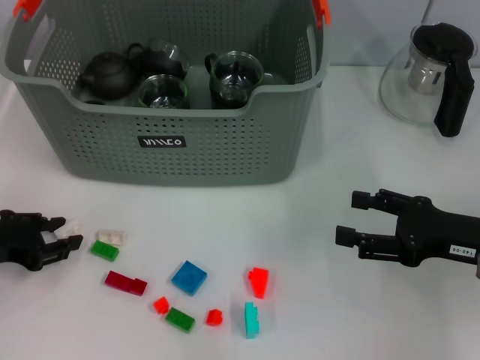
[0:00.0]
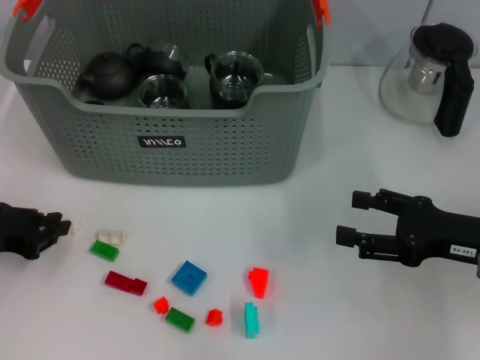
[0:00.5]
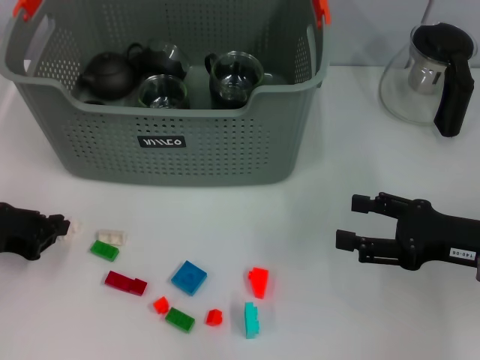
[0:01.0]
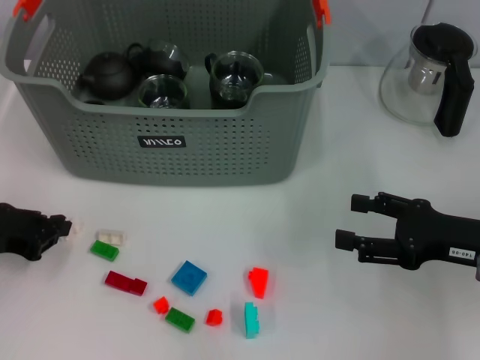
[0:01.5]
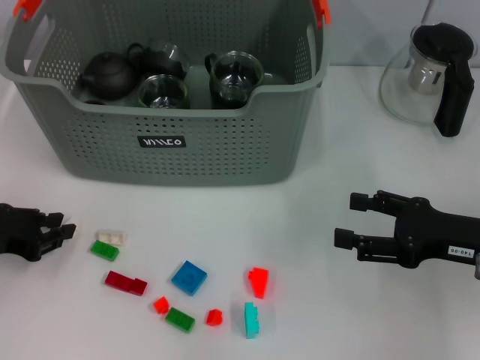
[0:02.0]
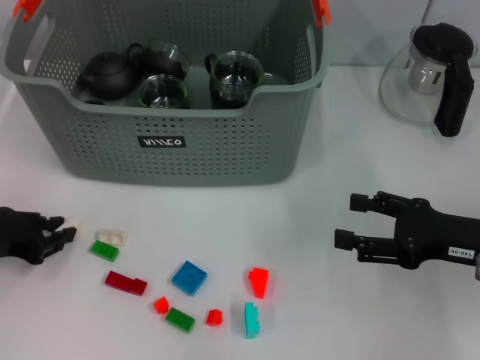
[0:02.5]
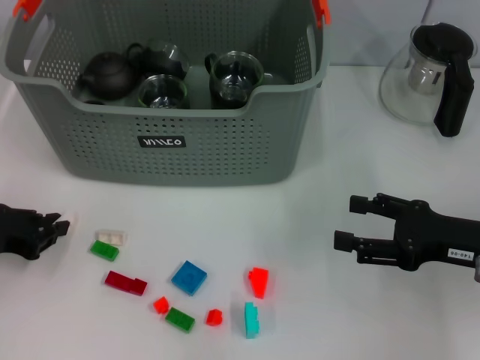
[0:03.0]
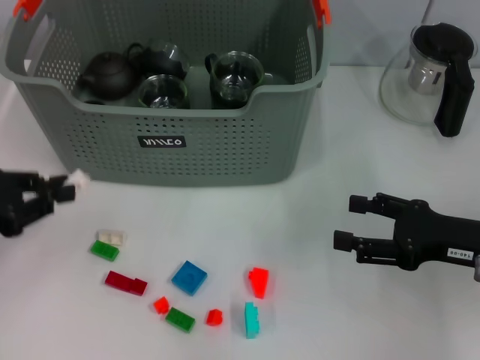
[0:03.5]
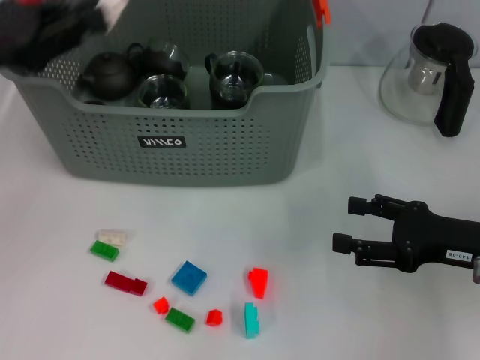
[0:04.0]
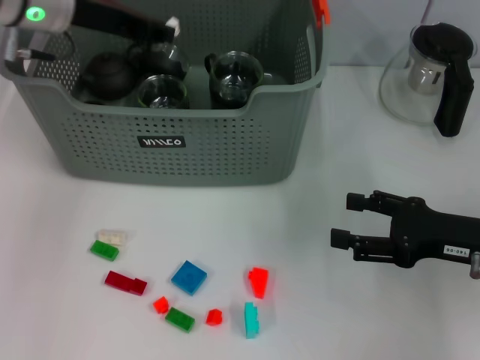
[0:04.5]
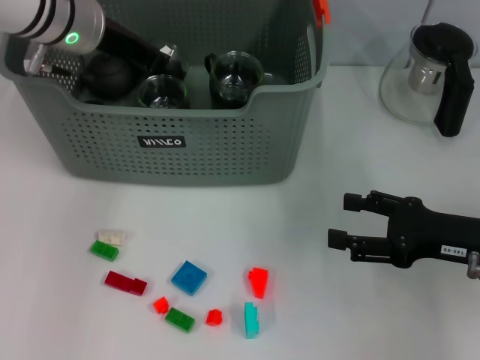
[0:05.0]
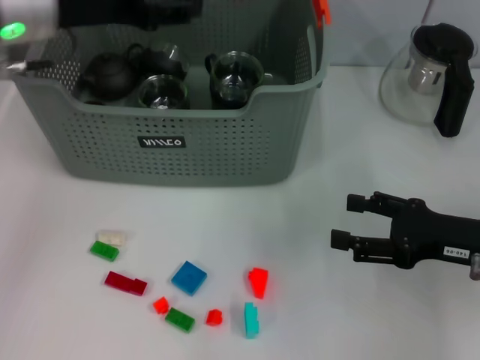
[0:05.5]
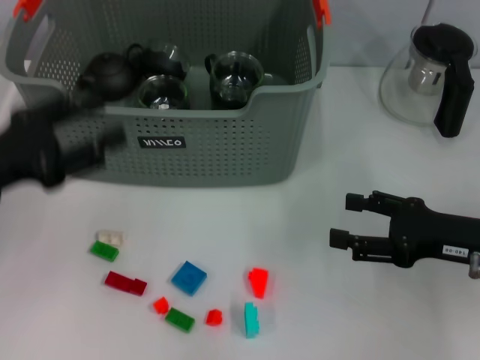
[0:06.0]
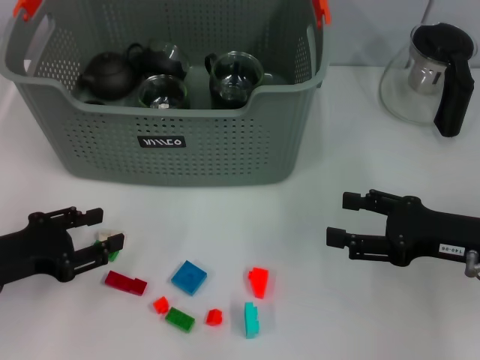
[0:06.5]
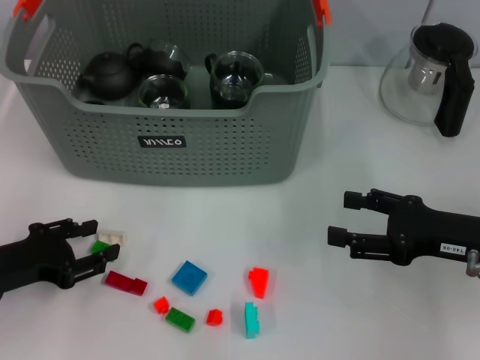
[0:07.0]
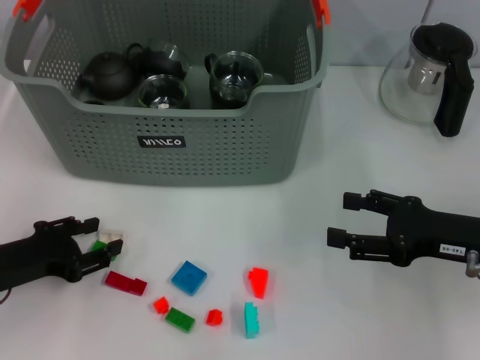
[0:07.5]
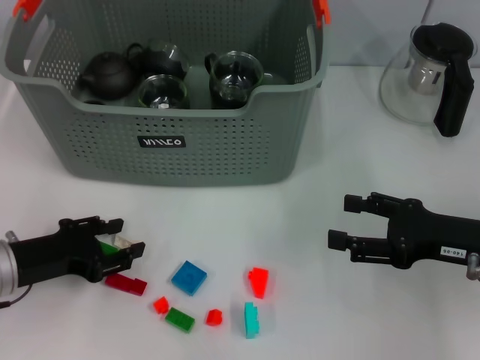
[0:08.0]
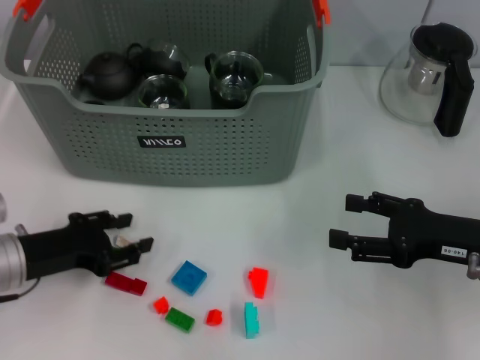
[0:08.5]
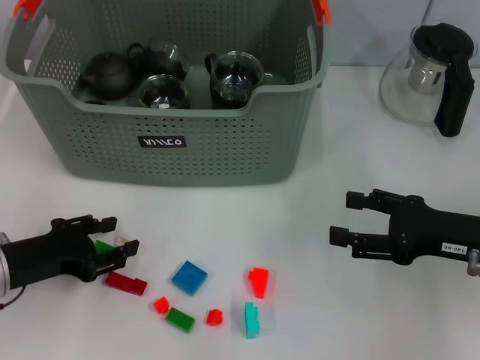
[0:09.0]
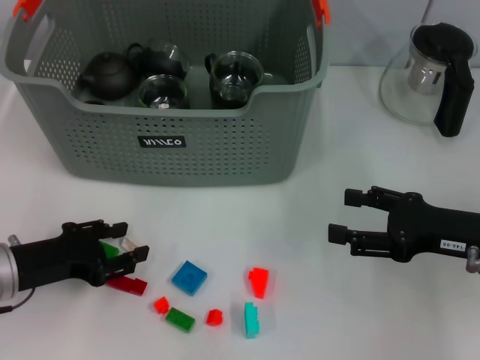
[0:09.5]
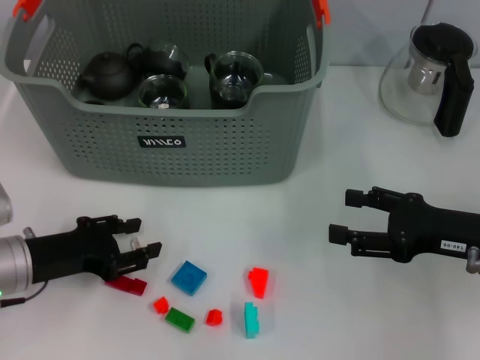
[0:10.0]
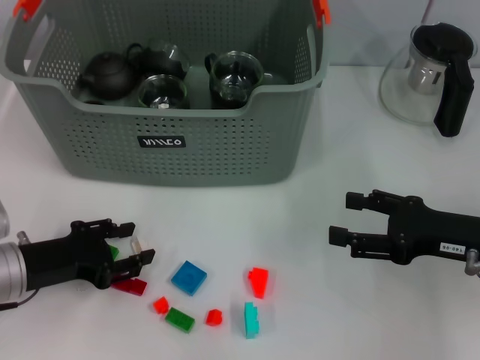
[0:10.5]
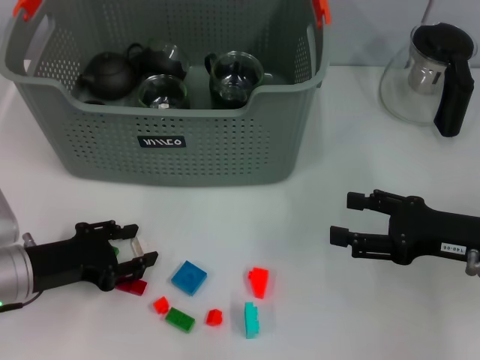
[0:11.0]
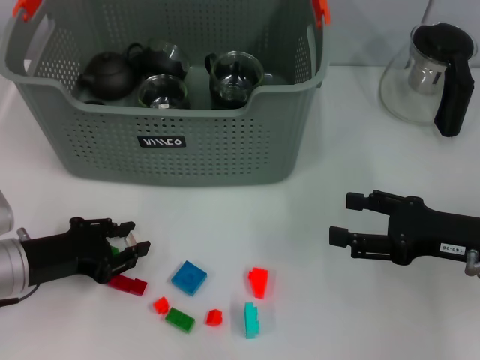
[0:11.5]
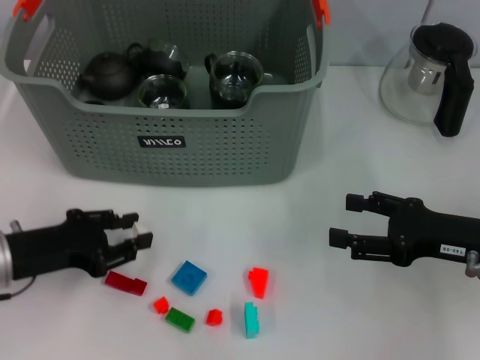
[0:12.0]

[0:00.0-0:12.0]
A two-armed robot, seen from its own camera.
Task of the whole recording: pick up the teacup on the table and place it into the storage bin, pick up the block on the table and place it into the storage bin.
Step, 0:00.0 to 0:03.0: Grasp the white block with left gripper.
Step, 0:03.5 to 0:05.0: Place the white block in the storage box with left gripper.
Step, 0:05.5 to 0:11.5: Grasp the white block with left gripper.
0:00.0 to 0:02.0: The two grippers keep their place.
0:02.0 to 0:04.0: The left gripper goes about 15 cm upward.
0:04.0 to 0:06.0: The left gripper moves downward and backward, approximately 10 cm, and opens up.
0:06.0 to 0:08.0: The left gripper travels downward by some 10 cm.
0:08.0 to 0:12.0: The grippers move only a little.

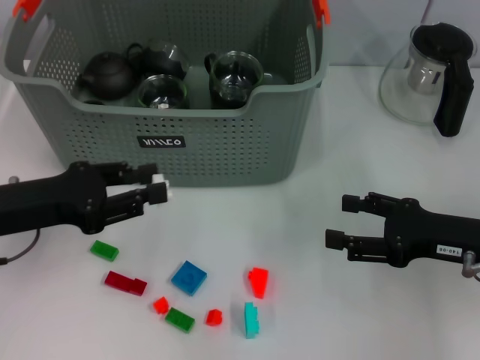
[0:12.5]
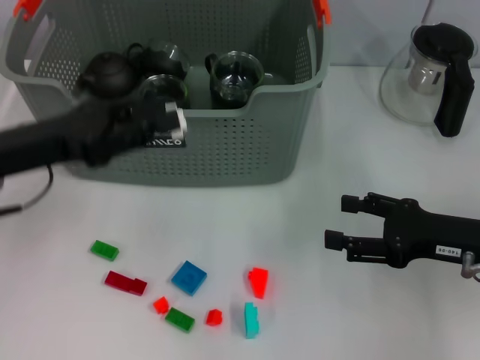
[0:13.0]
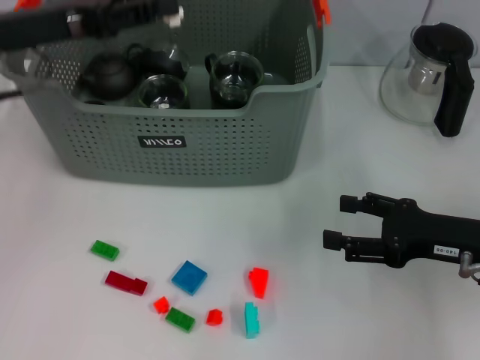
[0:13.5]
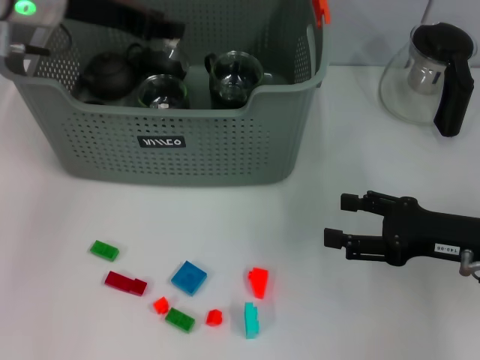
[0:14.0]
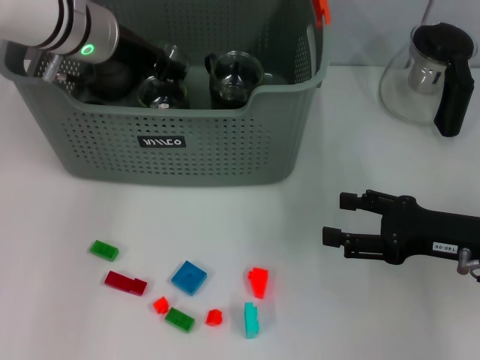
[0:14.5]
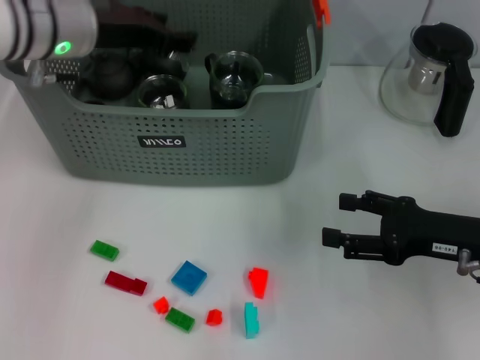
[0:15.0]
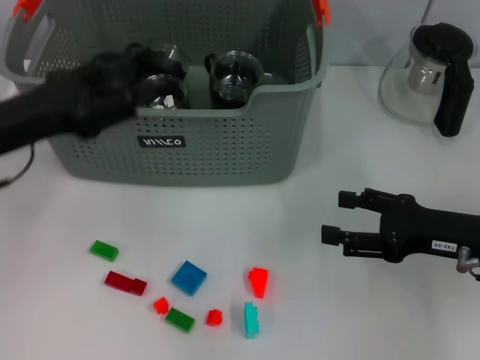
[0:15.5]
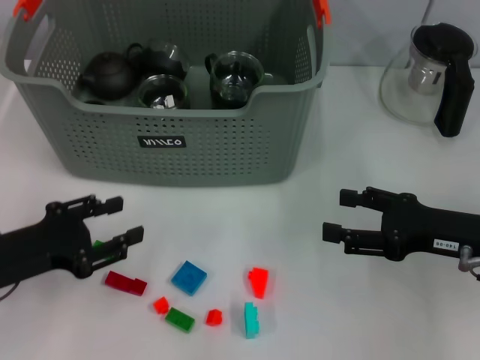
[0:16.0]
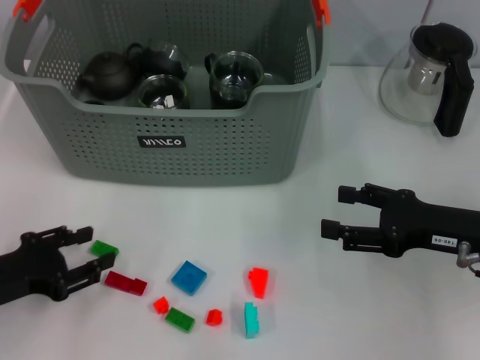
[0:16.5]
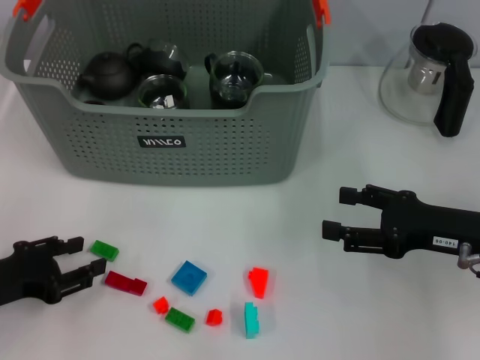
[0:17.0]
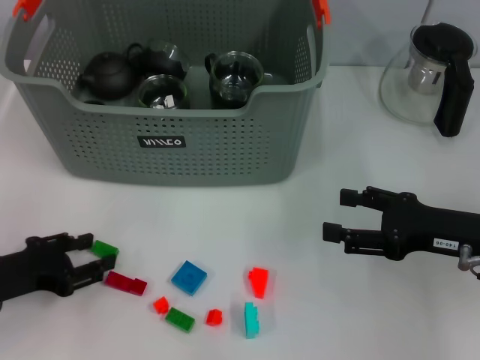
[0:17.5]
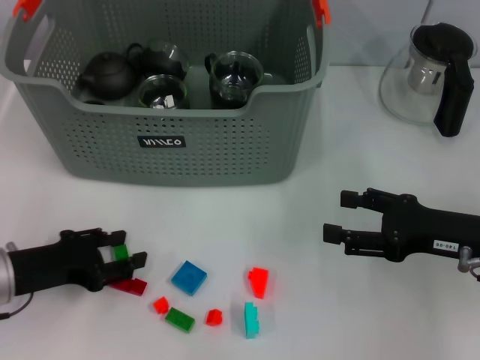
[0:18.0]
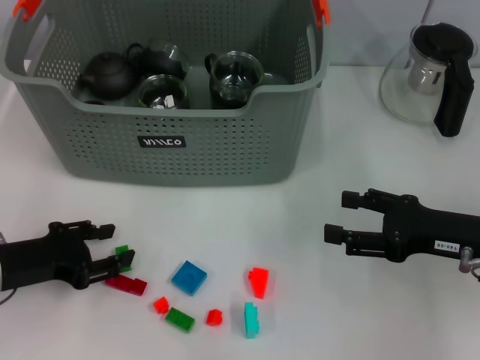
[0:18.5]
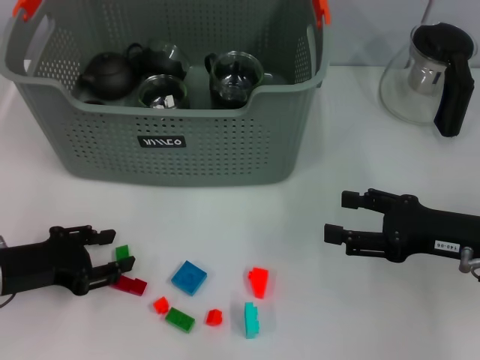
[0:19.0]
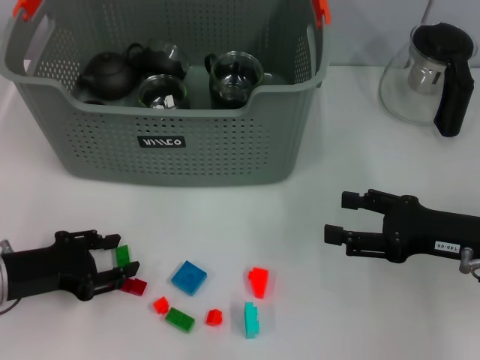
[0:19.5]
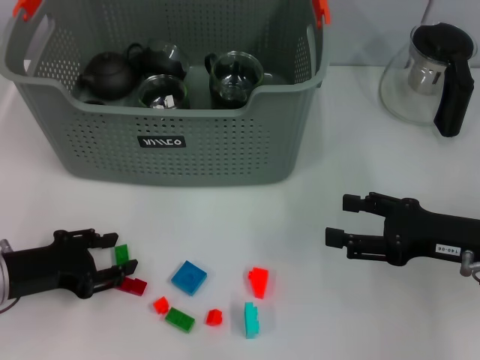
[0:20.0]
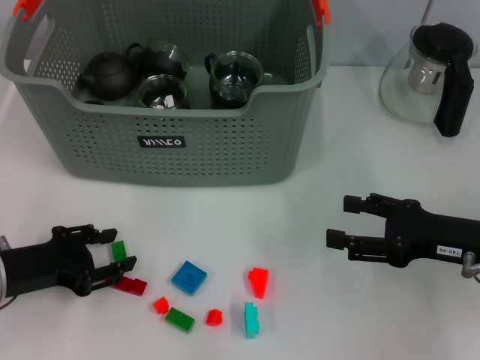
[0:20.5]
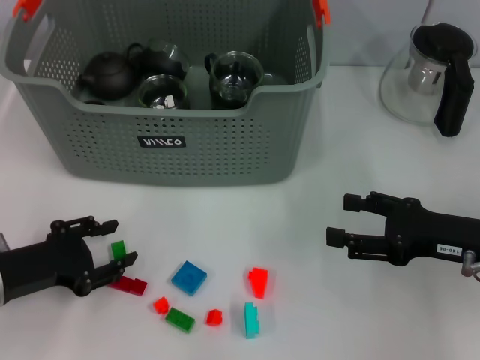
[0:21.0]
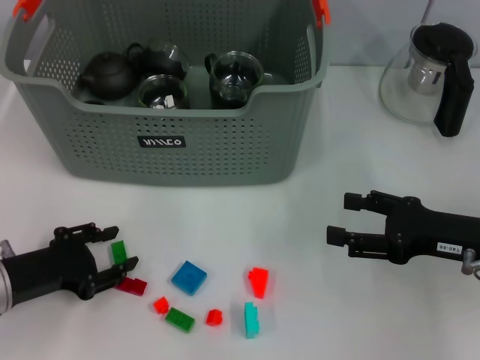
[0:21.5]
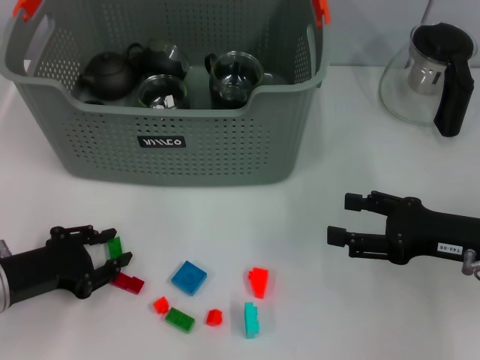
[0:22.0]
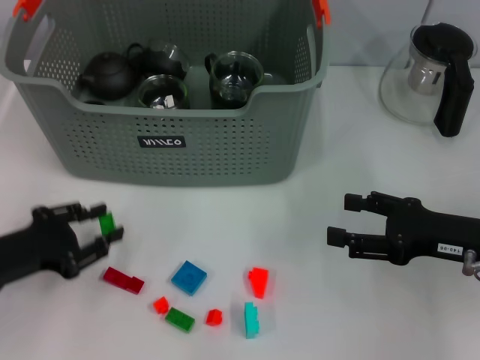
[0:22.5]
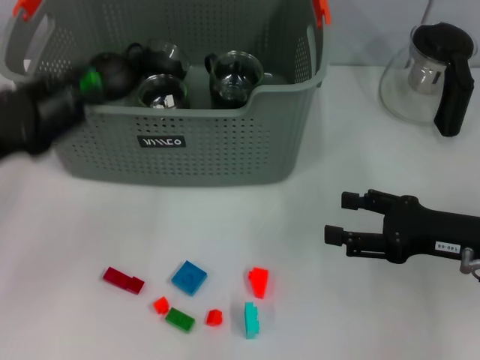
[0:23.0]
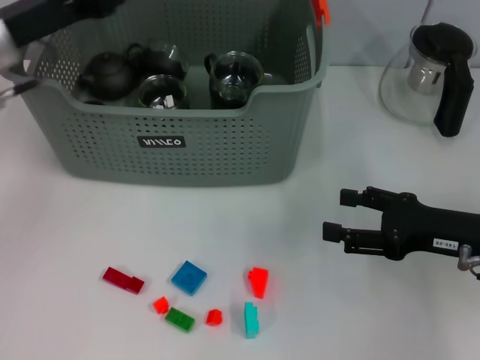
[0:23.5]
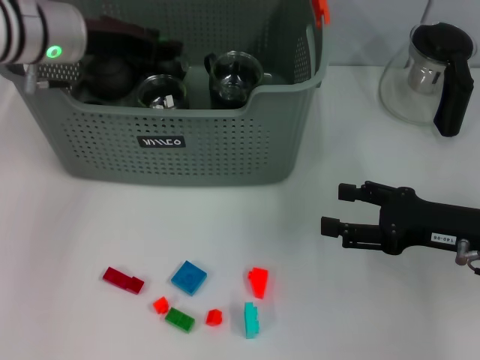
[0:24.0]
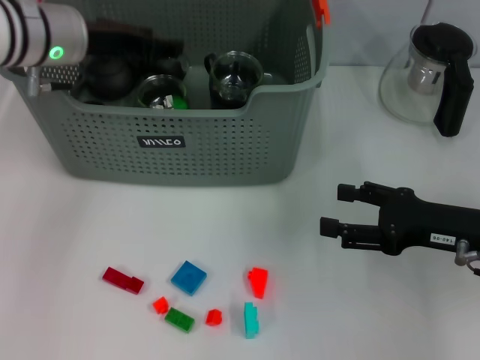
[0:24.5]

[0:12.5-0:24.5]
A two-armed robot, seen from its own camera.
Task of the whole recording: pick up the teacup on the table and place it into the storage bin, pick up the block on the table and place it into the storage bin.
Step, 0:12.5 to 0:14.5: Place the white block in the storage box with left gripper.
Step, 0:15.0 to 0:22.0: Grasp the green block with left gripper.
Step, 0:22.5 to 0:24.0: Place the green block in the storage box with left gripper.
0:12.5 to 0:14.5: The left gripper shifts roughly 20 cm forward, to the right and upward.
0:14.5 to 0:16.5: The left gripper goes roughly 30 cm backward, downward and to the left.
0:16.5 to 0:18.5: There are only small adjustments of the grippers.
0:18.5 to 0:20.5: Both grippers stay about where they are.
0:20.5 to 0:22.5: The grippers stay close to where they were, moving slightly.
0:22.5 to 0:24.5: The left gripper travels forward, upward and to the right by approximately 25 cm.

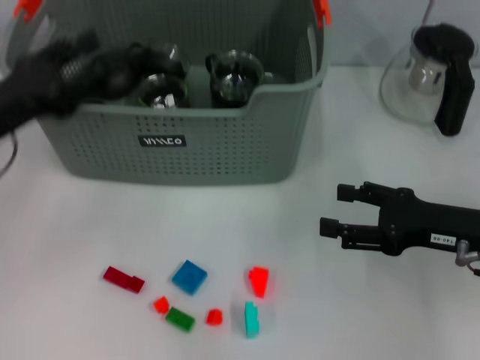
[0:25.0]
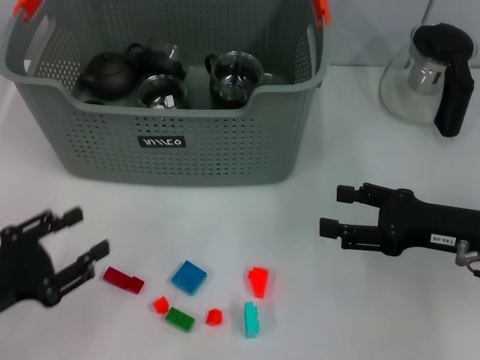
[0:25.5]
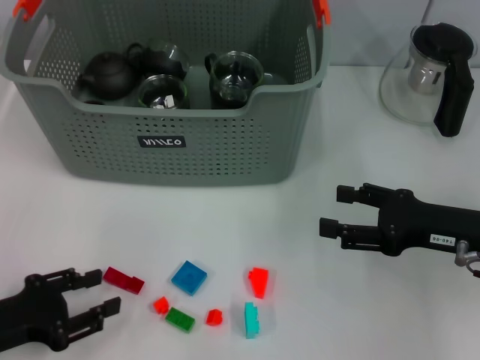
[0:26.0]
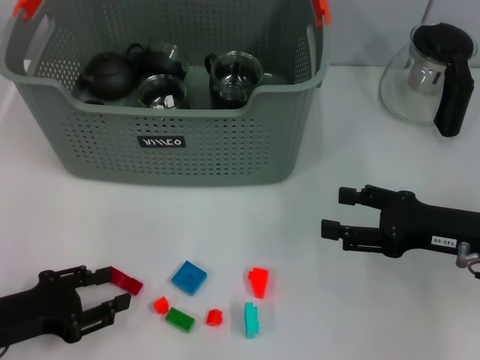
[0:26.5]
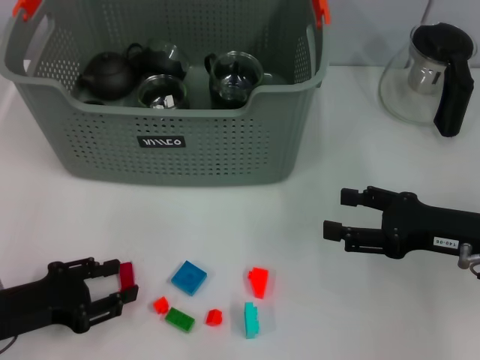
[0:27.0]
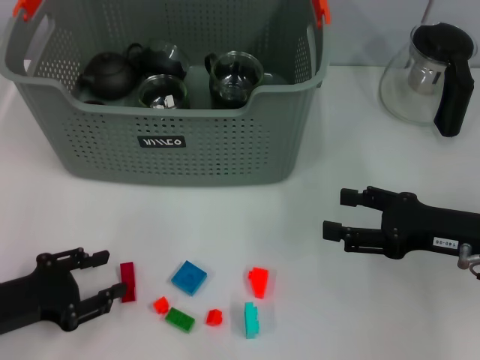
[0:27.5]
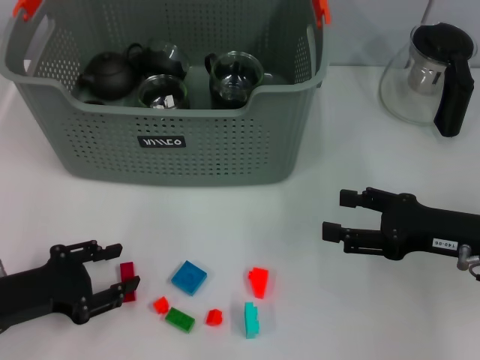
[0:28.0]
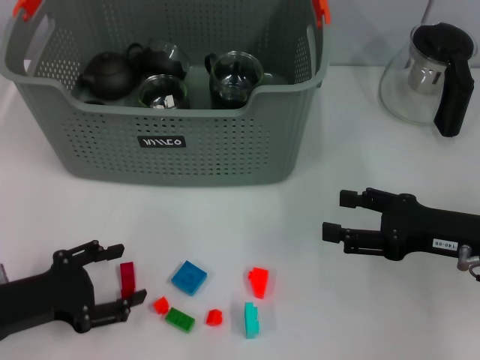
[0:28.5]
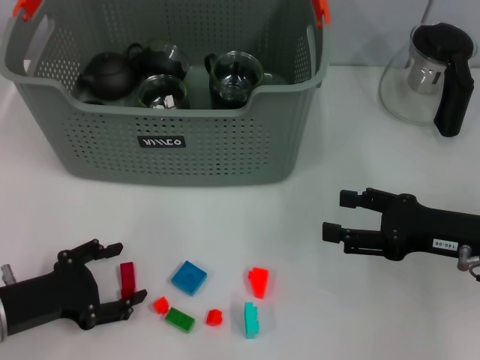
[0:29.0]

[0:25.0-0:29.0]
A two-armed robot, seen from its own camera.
Task of the whole recording: pick up the teacup on the table and place it into the storage bin, pick up the block on the table and place it into the storage bin.
0:25.0 to 0:27.0: The left gripper travels downward and backward by approximately 15 cm.
0:27.0 to 0:29.0: The grippers move only a little.
